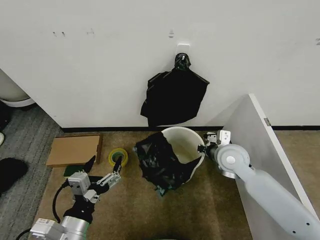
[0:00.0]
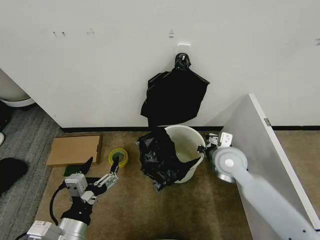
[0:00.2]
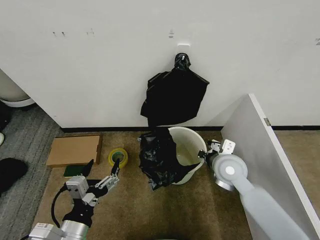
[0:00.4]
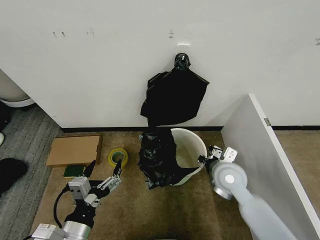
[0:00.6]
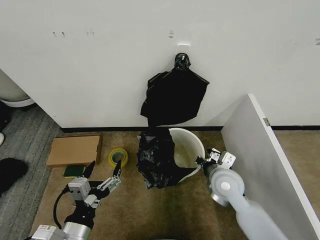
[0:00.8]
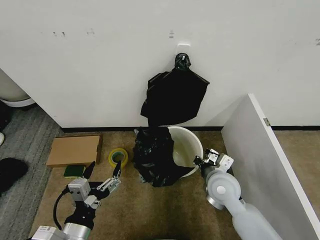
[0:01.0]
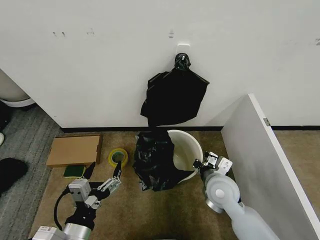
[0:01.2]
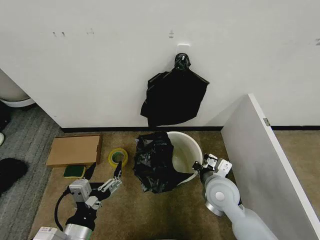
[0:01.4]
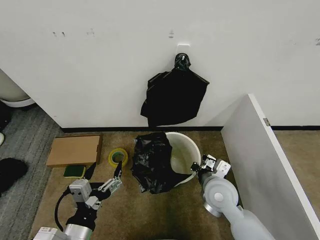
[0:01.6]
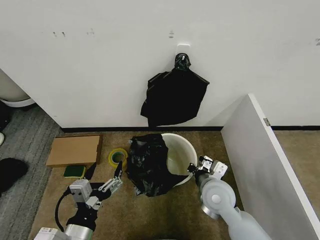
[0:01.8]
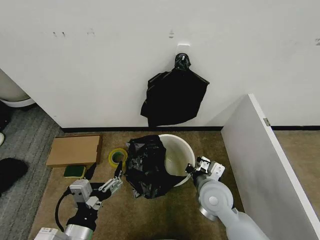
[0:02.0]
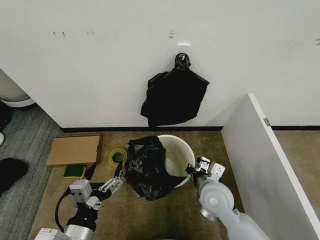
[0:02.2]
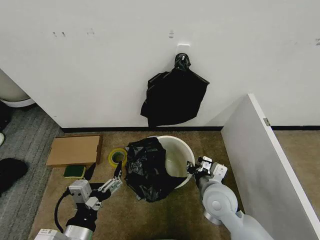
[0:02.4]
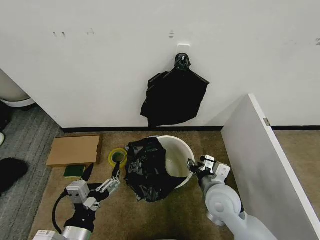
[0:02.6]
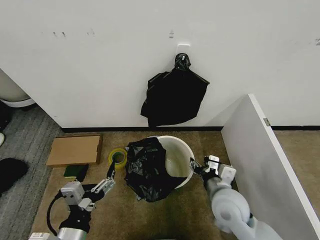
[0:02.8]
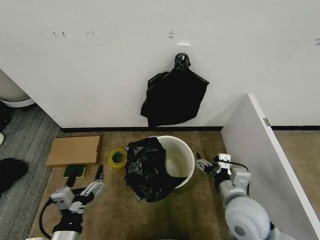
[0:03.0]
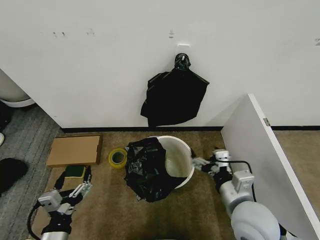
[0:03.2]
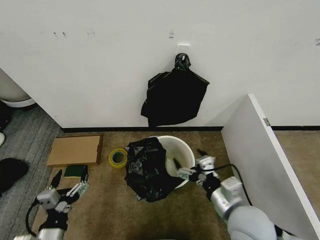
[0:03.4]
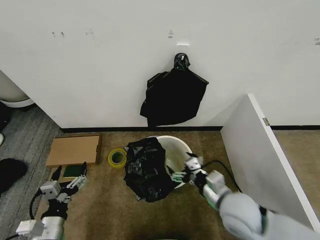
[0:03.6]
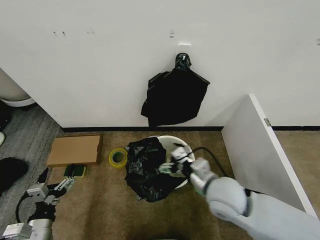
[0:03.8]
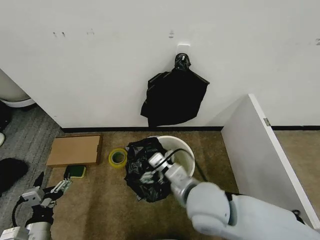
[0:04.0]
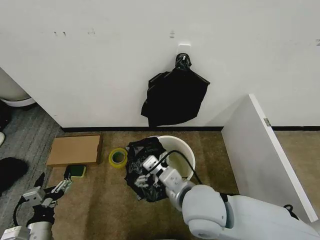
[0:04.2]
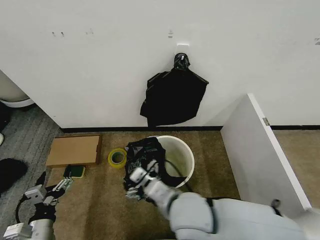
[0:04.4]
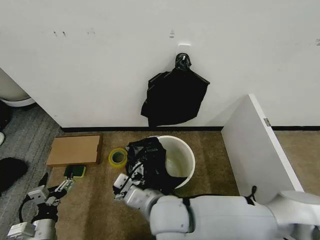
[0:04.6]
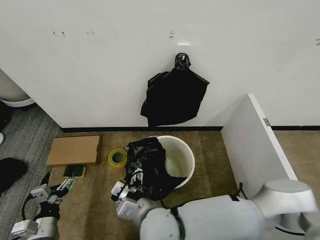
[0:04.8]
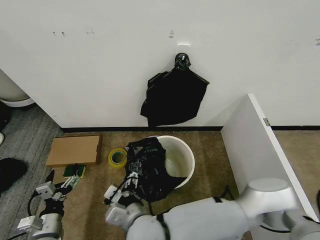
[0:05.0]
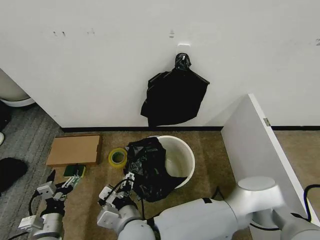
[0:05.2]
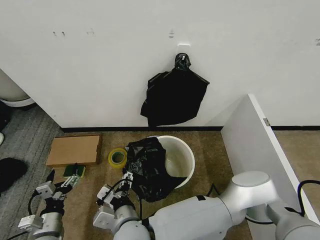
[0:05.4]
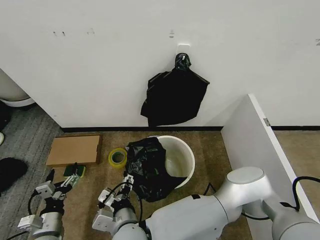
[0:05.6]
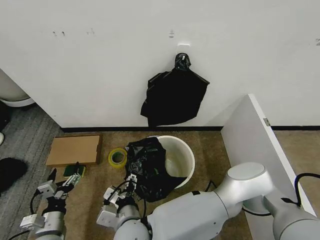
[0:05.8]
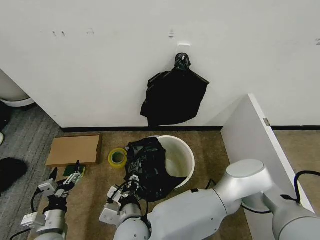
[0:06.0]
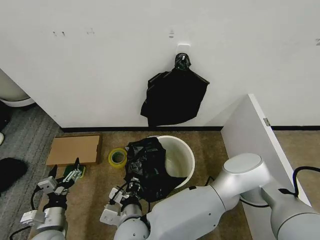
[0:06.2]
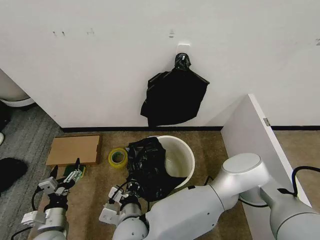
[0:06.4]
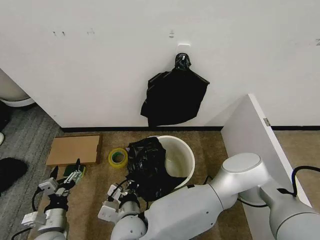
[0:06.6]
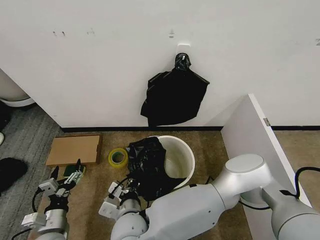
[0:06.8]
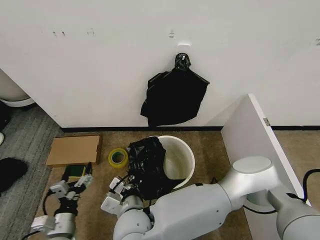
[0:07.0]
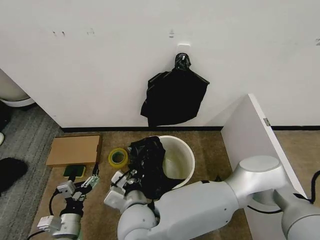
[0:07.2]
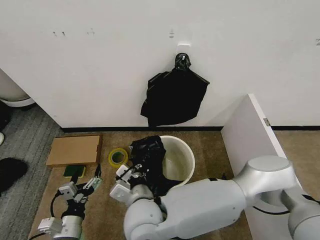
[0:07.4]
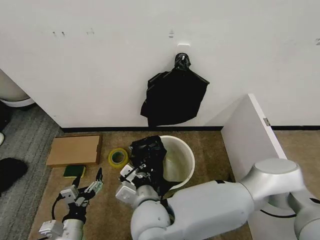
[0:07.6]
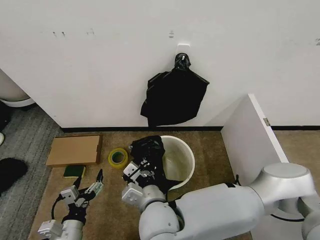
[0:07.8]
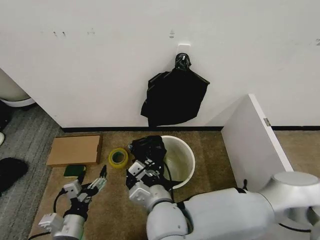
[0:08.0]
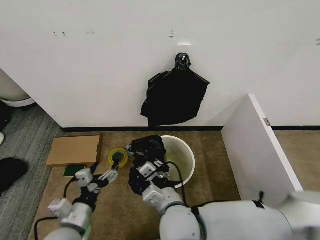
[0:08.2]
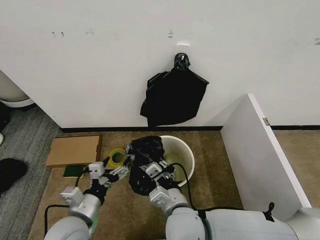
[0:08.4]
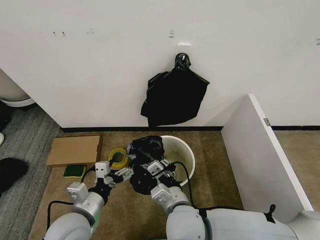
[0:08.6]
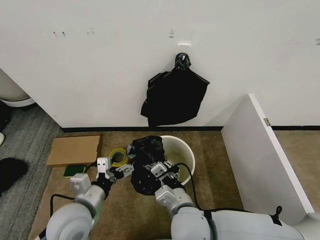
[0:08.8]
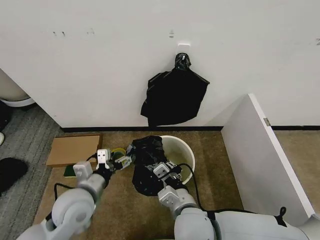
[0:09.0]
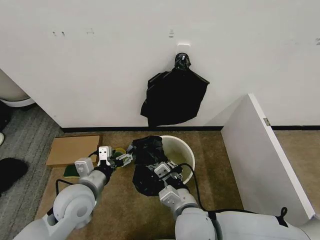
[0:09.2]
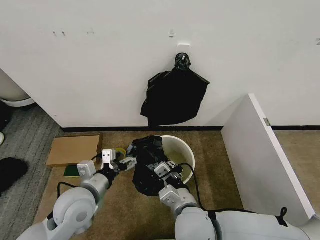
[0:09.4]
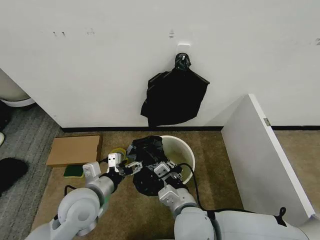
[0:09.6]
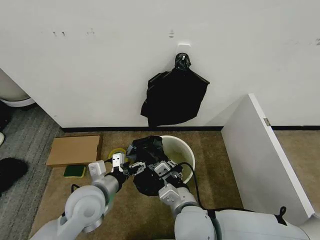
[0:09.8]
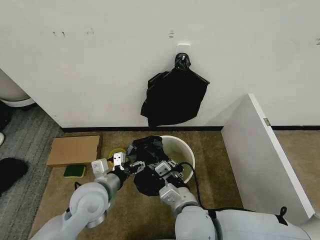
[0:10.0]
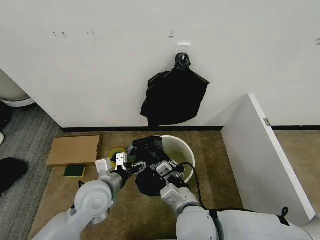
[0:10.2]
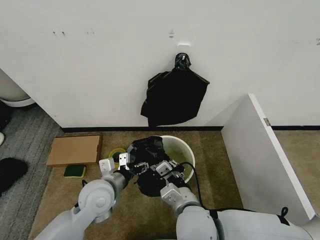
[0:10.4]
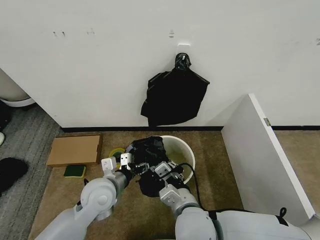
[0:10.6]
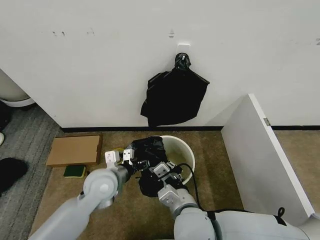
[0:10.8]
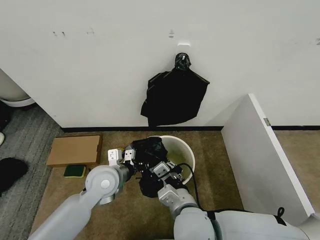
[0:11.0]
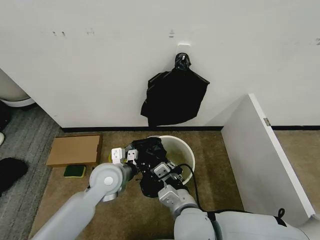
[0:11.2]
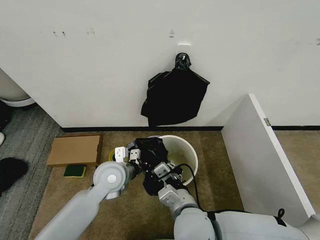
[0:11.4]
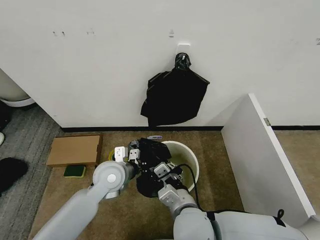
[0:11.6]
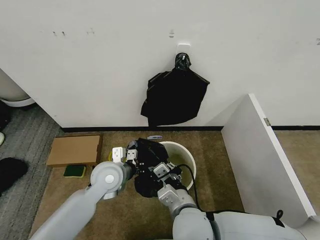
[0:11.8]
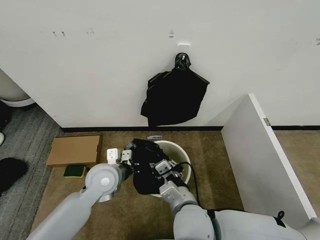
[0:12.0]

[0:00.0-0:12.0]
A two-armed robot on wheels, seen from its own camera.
Task of the whole recording: Place the garbage bag over the trash bin.
0:00.0 to 0:01.6: The right gripper heads backward, downward and to the left, covering about 10 cm.
0:01.6 to 0:03.0: The right gripper is displaced backward by roughly 10 cm, and opens its fingers.
0:03.0 to 0:04.4: The right gripper moves to the left, about 15 cm, while the left gripper shifts roughly 10 cm to the left and downward.
0:04.4 to 0:06.0: The right gripper travels to the left and downward by some 15 cm, and closes its fingers.
0:06.0 to 0:07.6: The left gripper travels to the right by approximately 5 cm; the right gripper moves upward and to the right, about 10 cm, and closes.
0:07.6 to 0:09.0: The left gripper heads upward and forward, covering roughly 15 cm. The right gripper heads to the right, covering approximately 10 cm.
0:09.0 to 0:10.4: The left gripper ends up approximately 5 cm from where it was.
0:10.4 to 0:12.0: The left gripper closes up.

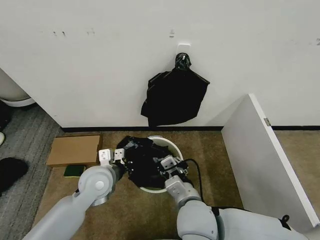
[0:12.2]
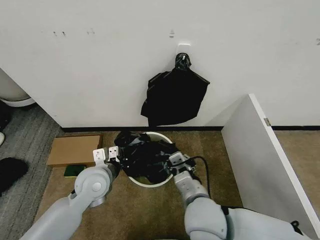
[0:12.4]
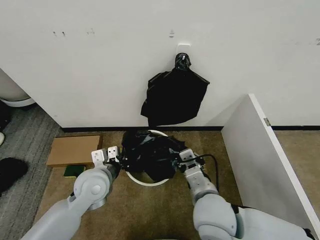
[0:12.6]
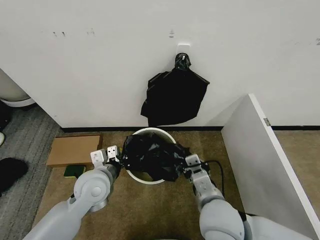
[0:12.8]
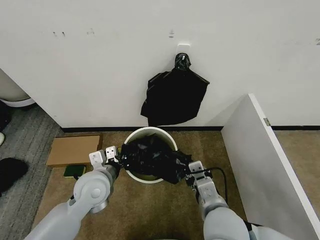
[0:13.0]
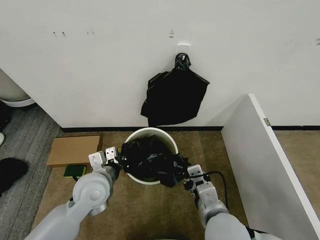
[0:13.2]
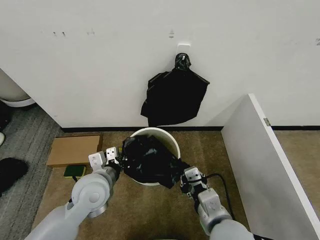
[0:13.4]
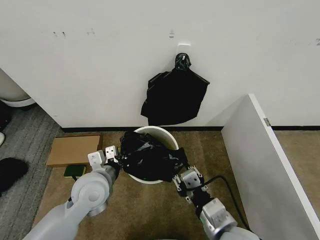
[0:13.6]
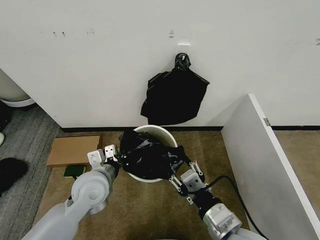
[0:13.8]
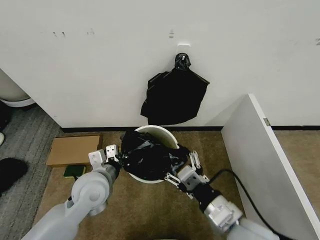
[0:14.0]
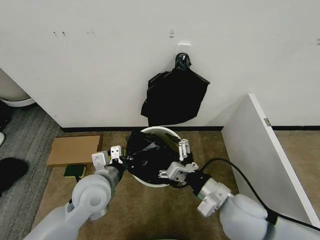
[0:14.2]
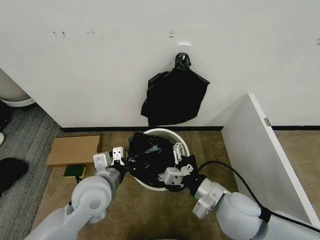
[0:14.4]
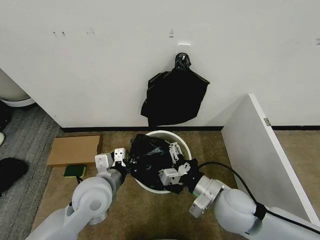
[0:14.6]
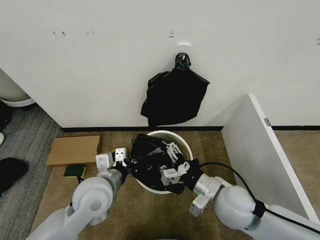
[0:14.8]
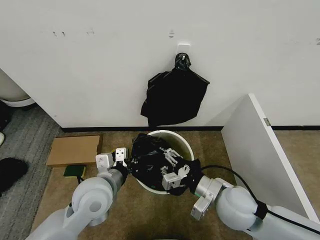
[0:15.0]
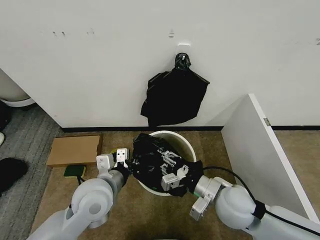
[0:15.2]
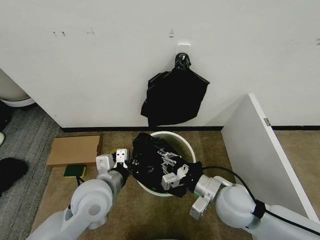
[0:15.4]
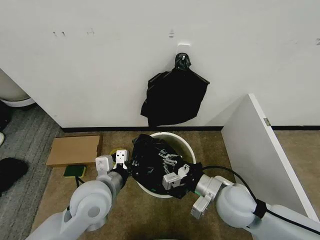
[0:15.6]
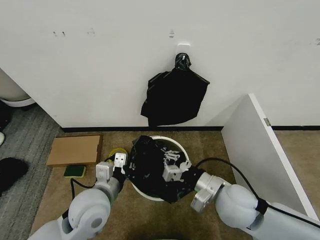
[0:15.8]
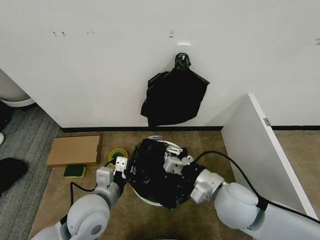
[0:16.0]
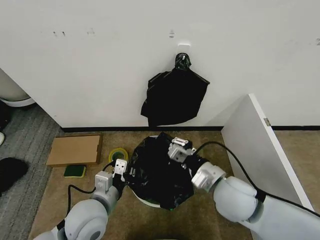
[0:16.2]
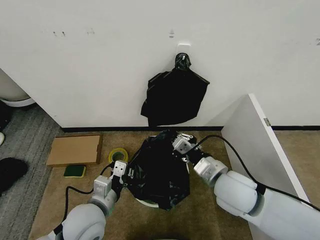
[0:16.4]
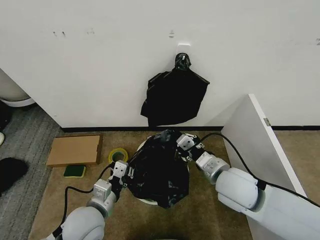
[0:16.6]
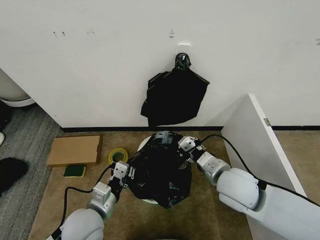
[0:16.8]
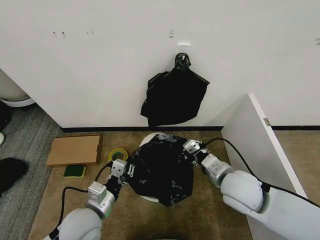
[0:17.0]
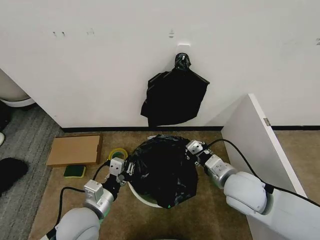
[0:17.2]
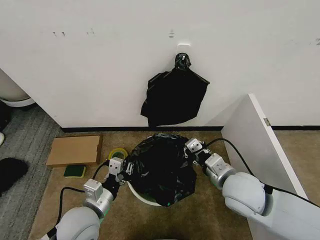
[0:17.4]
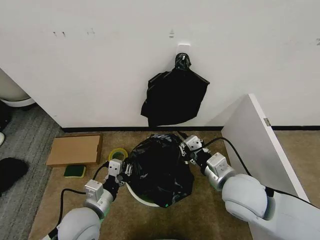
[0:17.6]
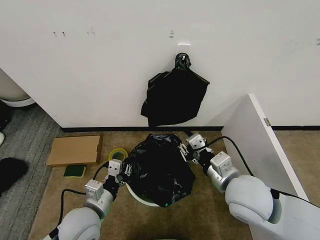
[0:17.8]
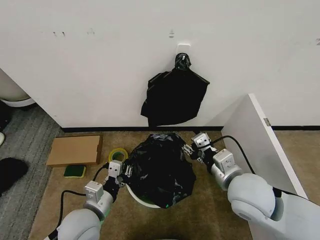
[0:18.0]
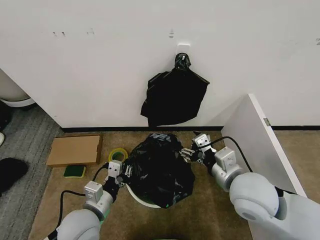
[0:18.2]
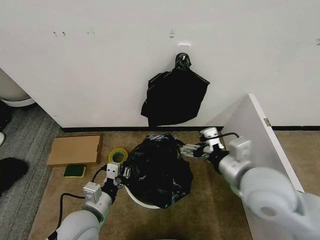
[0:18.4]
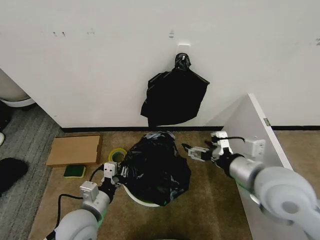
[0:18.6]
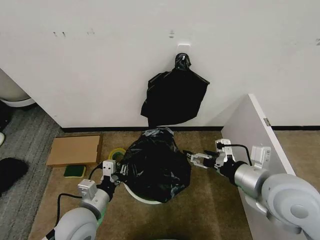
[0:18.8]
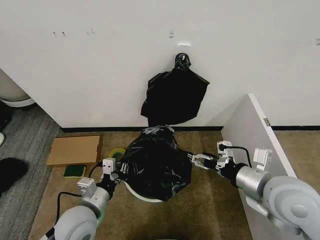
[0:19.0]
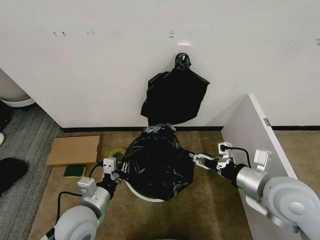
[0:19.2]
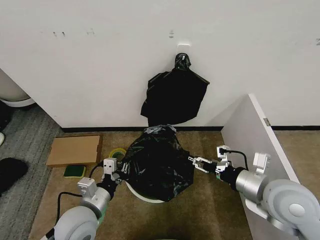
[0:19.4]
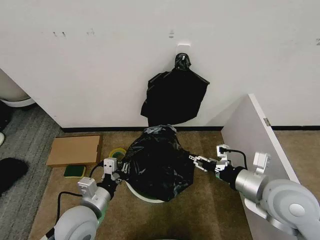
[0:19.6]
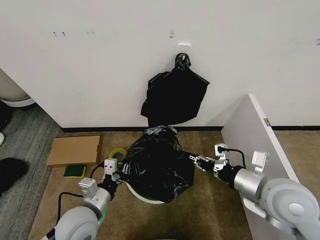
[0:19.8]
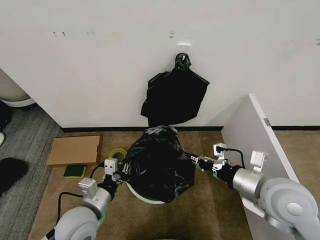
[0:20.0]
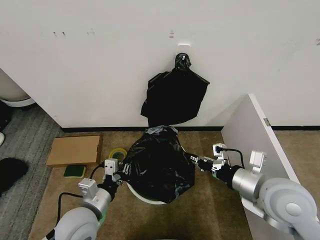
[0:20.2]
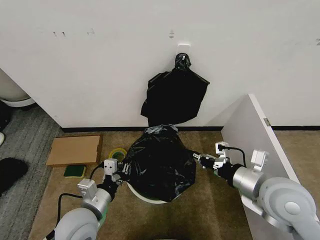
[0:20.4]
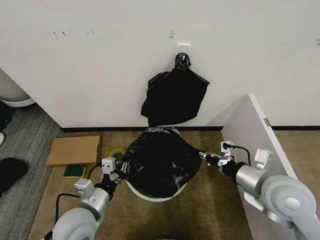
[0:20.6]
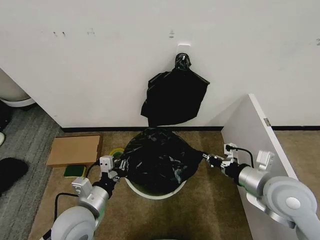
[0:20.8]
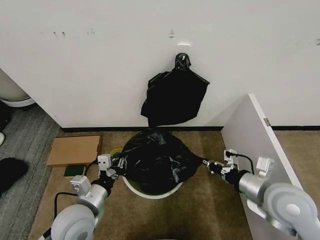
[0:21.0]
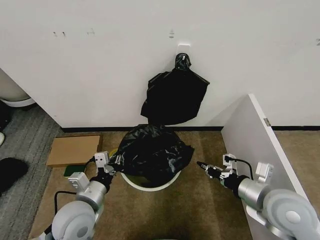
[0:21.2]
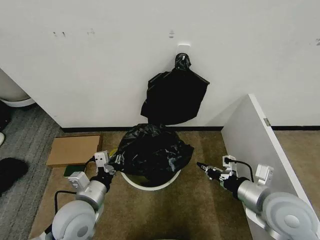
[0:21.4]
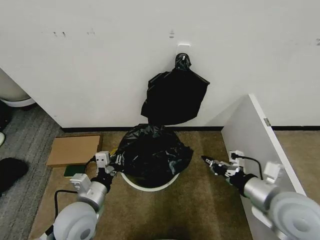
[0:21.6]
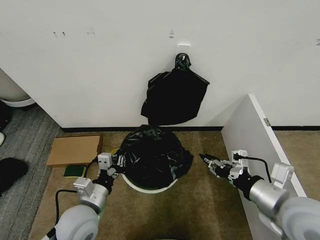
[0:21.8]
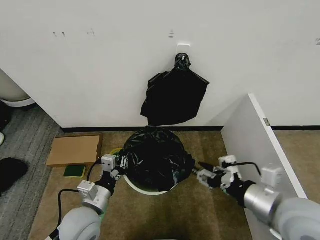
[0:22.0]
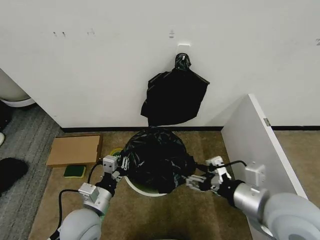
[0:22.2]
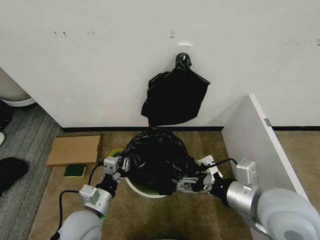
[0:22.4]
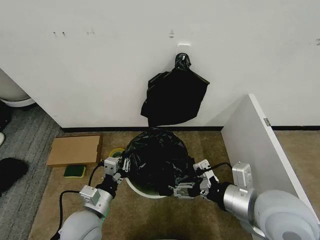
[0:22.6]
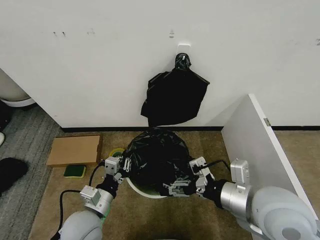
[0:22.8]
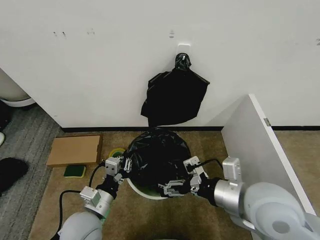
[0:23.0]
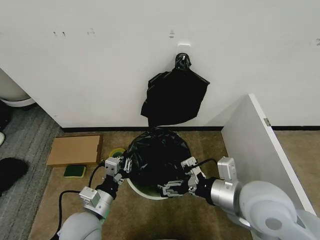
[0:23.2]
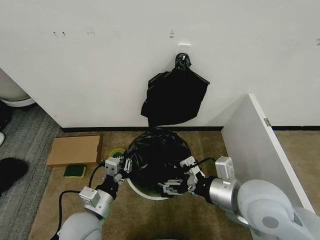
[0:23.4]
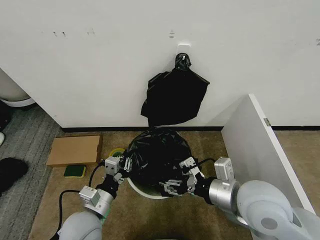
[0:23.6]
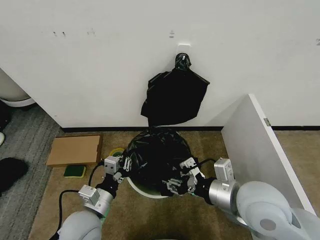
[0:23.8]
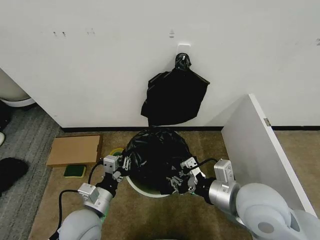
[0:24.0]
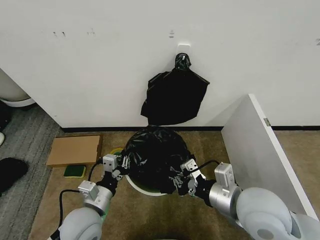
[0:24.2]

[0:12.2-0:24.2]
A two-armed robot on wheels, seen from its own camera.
Task of the whole recording: Place the garbage bag over the trash bin.
0:12.2 to 0:13.8: The right gripper goes about 10 cm to the right and backward, and opens.
0:13.8 to 0:15.2: The right gripper shifts about 10 cm forward, and opens, then closes once more.
0:15.2 to 0:16.6: The right gripper changes place by roughly 5 cm; the left gripper goes roughly 5 cm downward.
0:16.6 to 0:18.2: The right gripper opens its fingers.
0:18.2 to 0:19.8: The right gripper shifts roughly 5 cm to the right, and closes its fingers.
0:19.8 to 0:21.2: The grippers stay close to where they were, moving slightly.
0:21.2 to 0:22.6: The right gripper travels to the left and upward by about 10 cm, and opens.
0:22.6 to 0:24.2: The right gripper closes.
